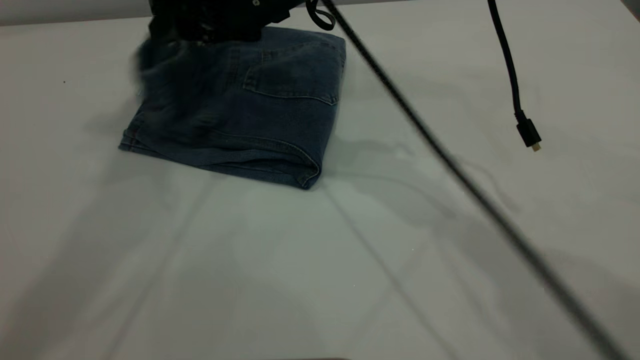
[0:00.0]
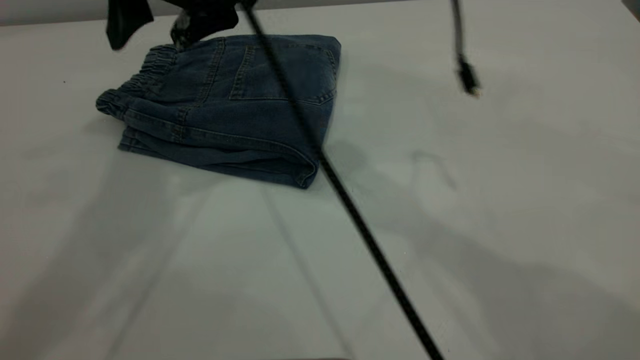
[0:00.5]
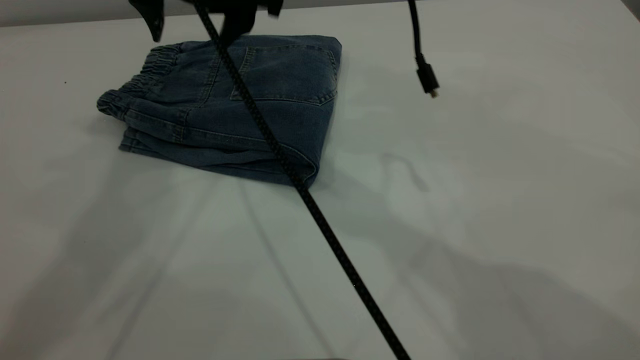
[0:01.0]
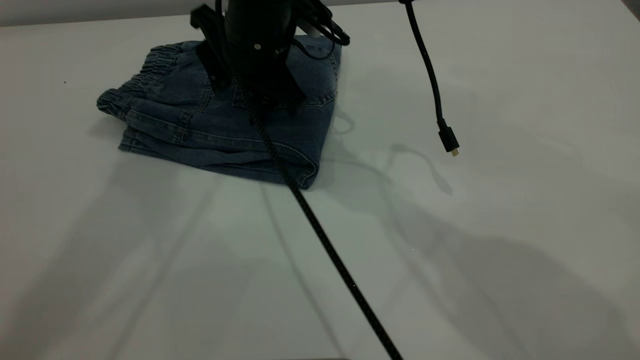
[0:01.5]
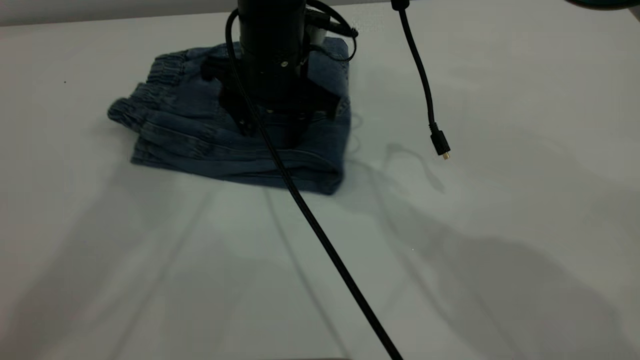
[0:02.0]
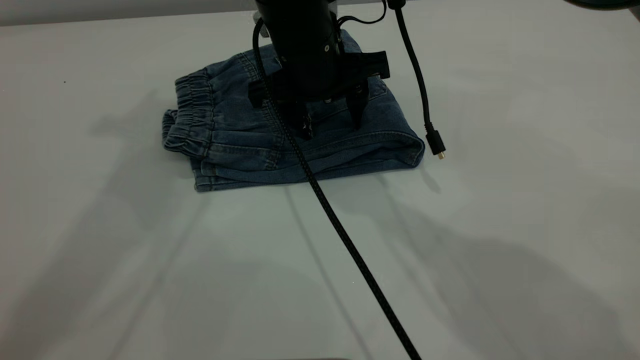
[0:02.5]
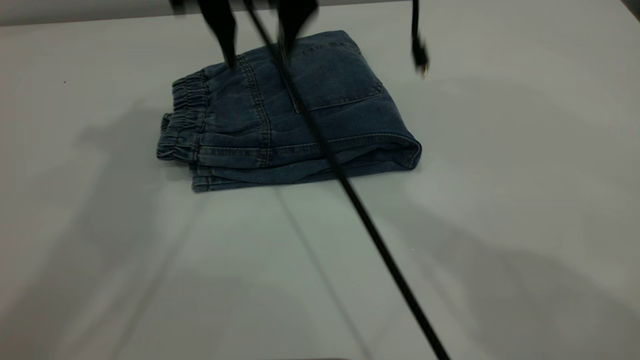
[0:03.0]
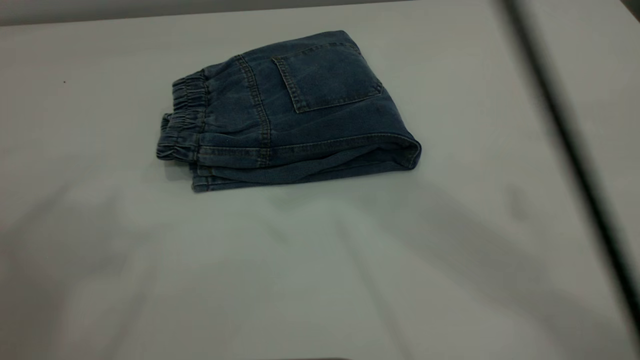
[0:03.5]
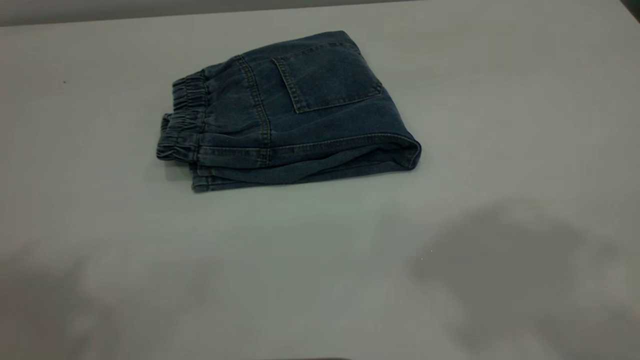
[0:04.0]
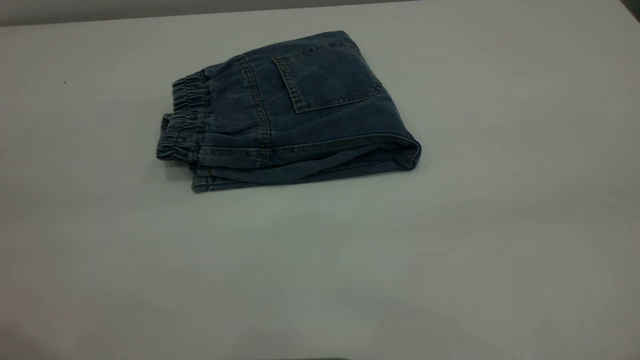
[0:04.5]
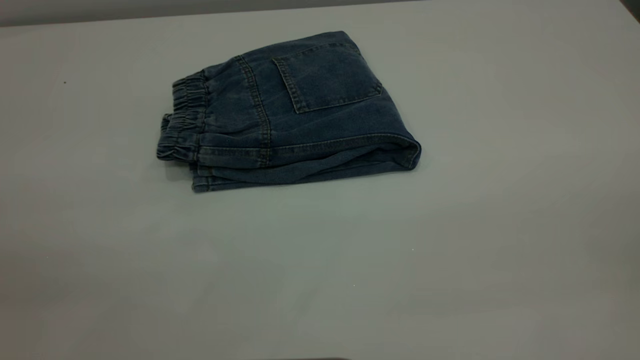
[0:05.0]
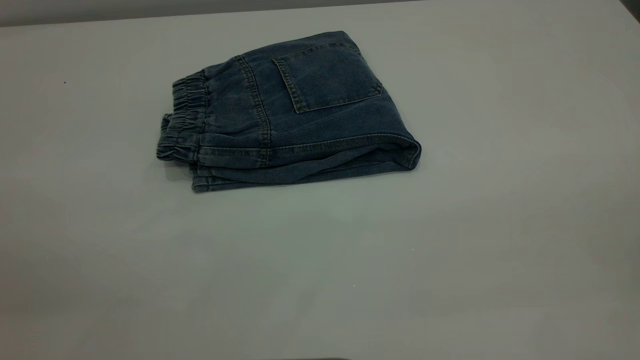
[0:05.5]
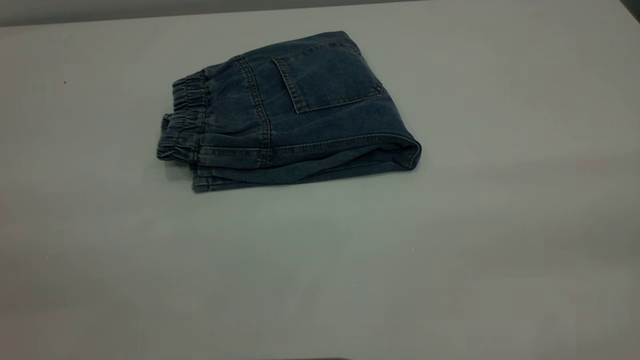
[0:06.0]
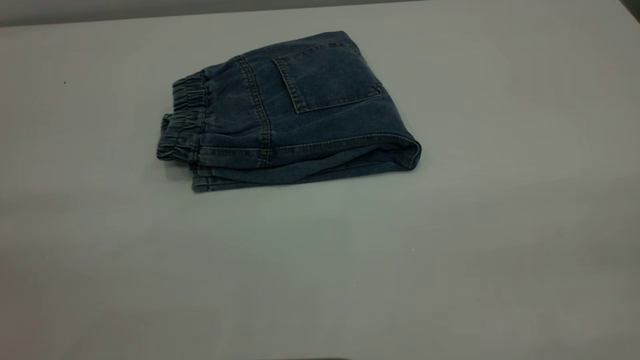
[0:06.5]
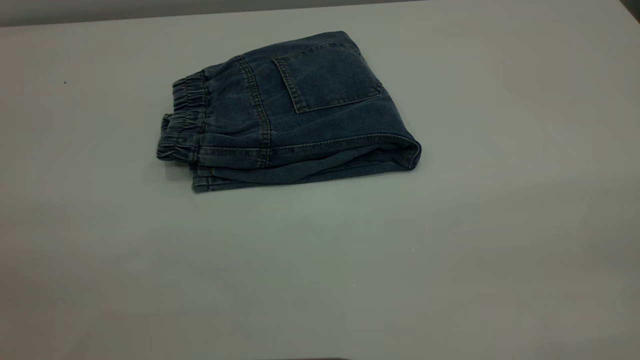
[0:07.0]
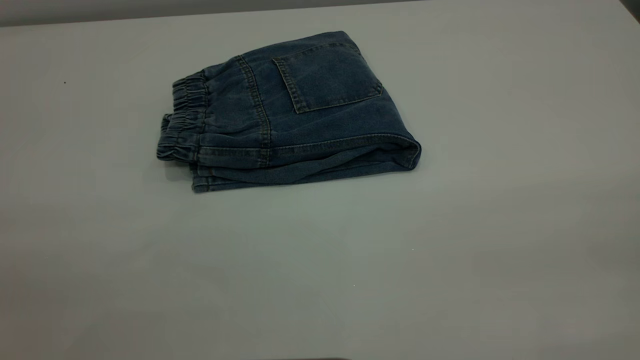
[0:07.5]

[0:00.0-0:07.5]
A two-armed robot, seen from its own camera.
0:00.0 to 0:02.0: The right gripper shifts about 5 cm downward.
0:02.0 to 0:04.0: The left gripper is displaced backward by approximately 20 cm, while the right gripper shifts roughly 40 cm upward, backward and to the right.
